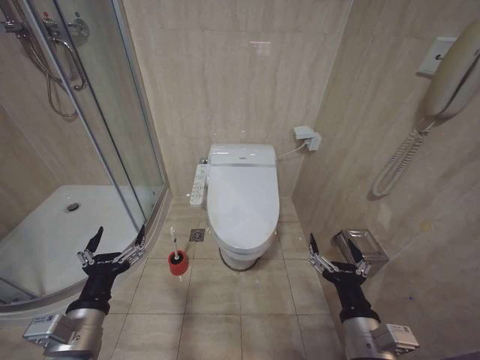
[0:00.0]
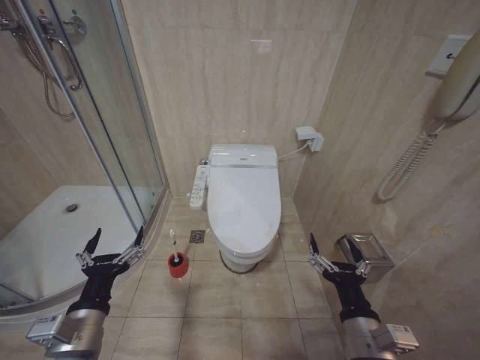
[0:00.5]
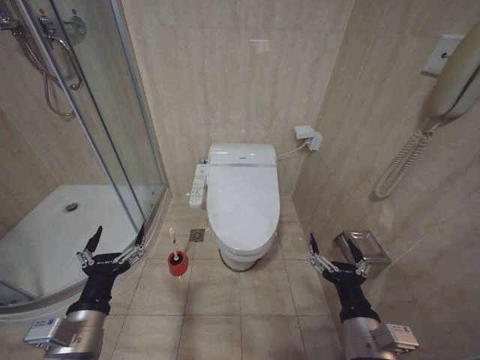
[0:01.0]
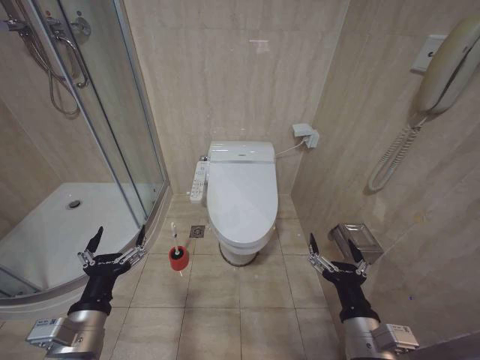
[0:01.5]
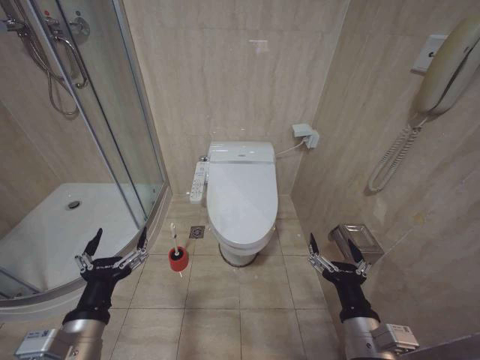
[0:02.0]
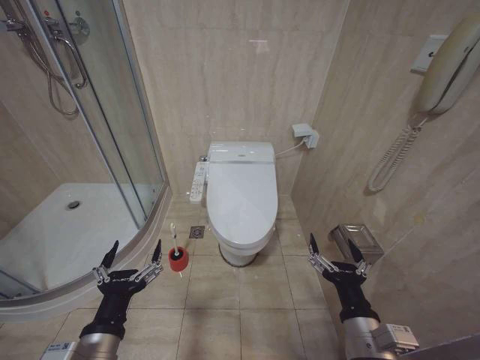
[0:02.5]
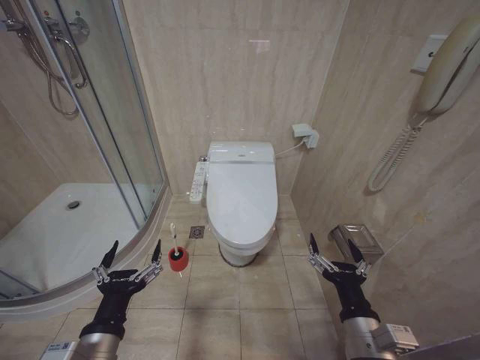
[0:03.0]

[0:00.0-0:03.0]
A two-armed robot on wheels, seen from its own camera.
Task of the whole recording: Open the toilet lid, clean the toilet bowl with a toilet brush, close the toilet lid, and flush.
0:00.0 to 0:01.5: Neither gripper changes place.
0:01.5 to 0:03.0: The left gripper shifts by some 5 cm.
